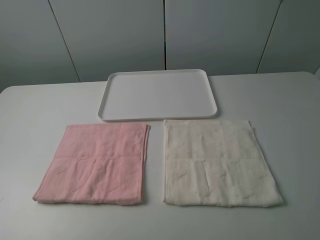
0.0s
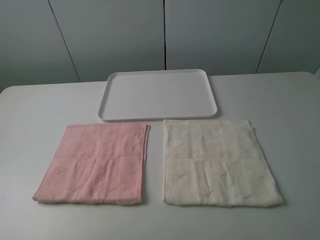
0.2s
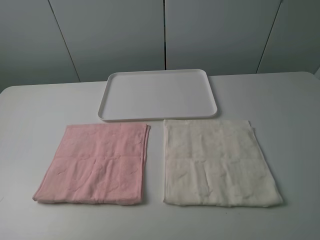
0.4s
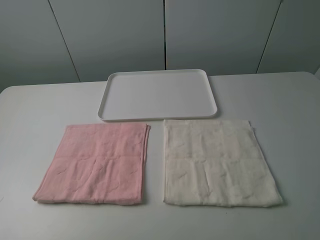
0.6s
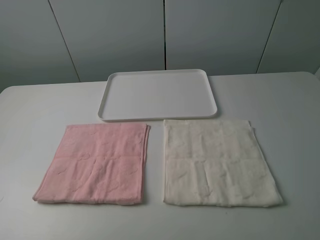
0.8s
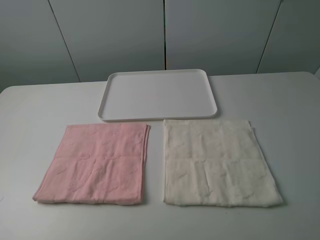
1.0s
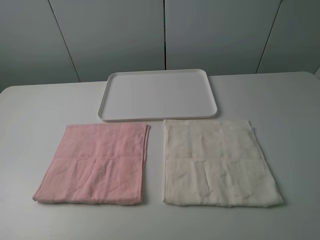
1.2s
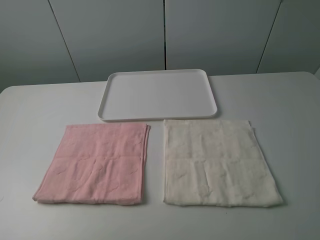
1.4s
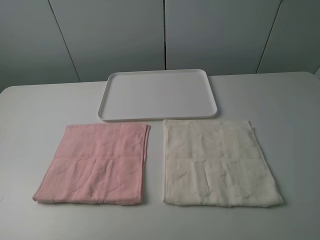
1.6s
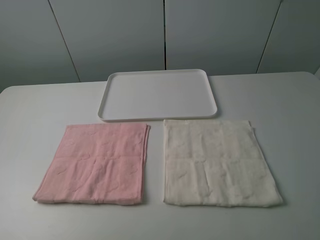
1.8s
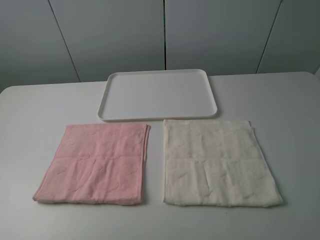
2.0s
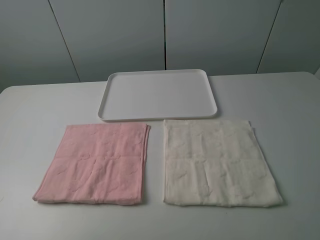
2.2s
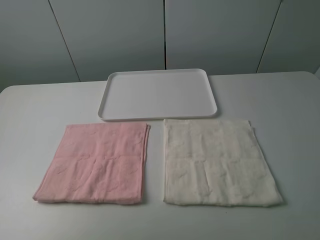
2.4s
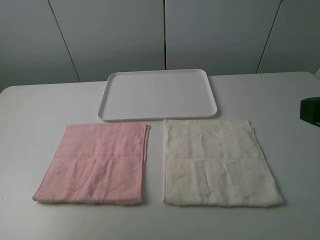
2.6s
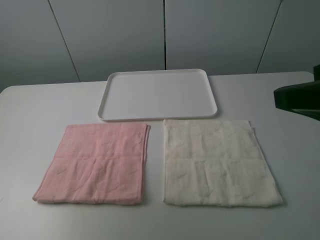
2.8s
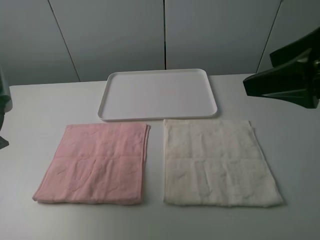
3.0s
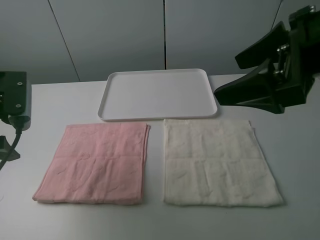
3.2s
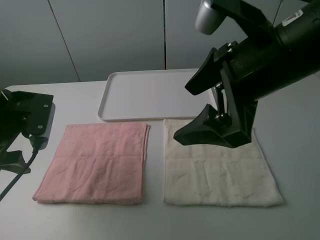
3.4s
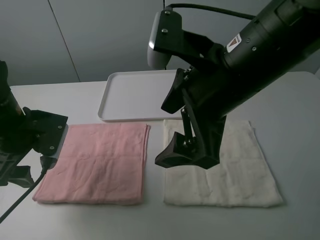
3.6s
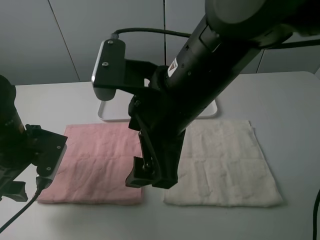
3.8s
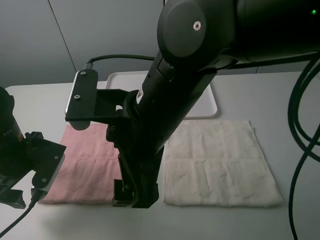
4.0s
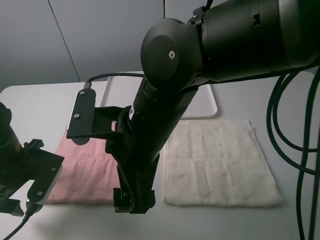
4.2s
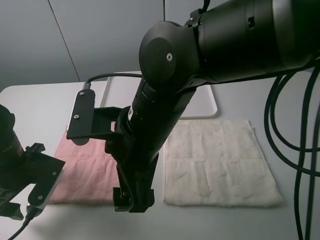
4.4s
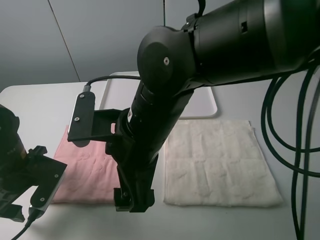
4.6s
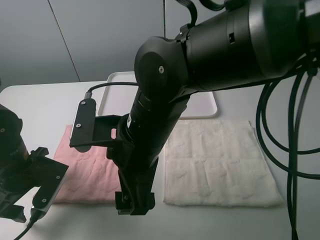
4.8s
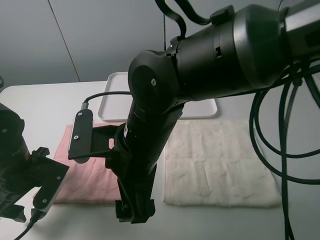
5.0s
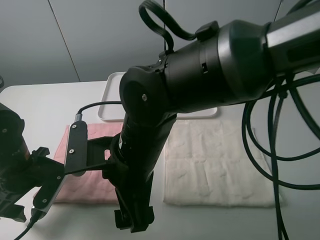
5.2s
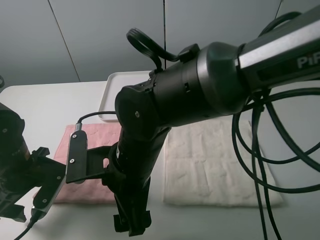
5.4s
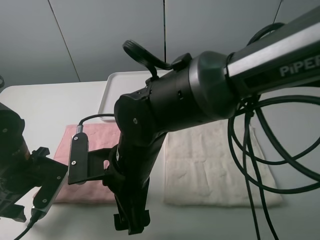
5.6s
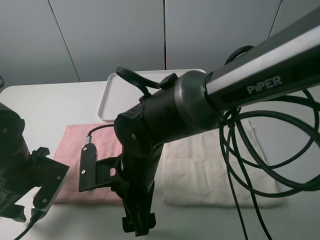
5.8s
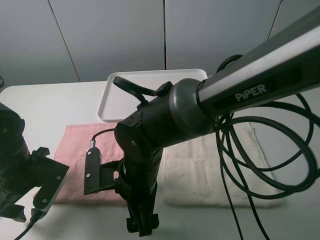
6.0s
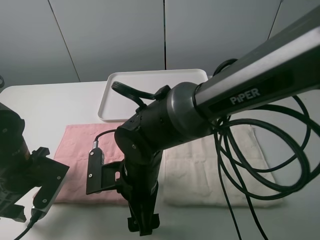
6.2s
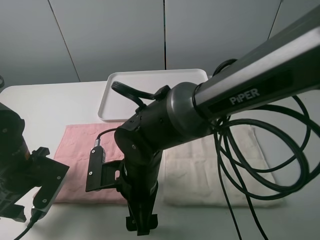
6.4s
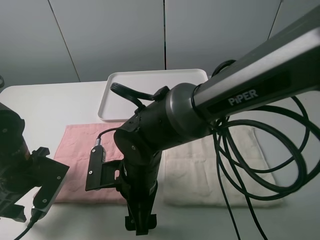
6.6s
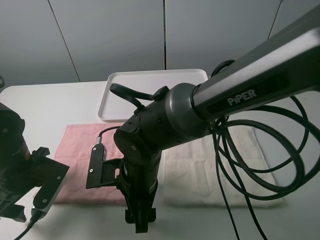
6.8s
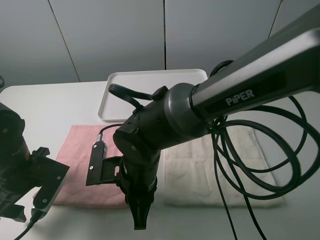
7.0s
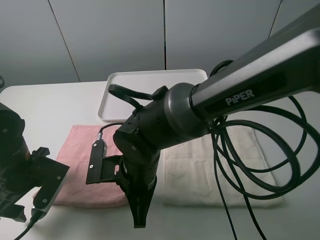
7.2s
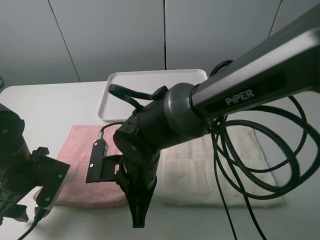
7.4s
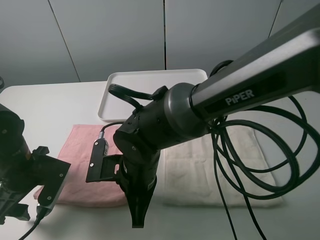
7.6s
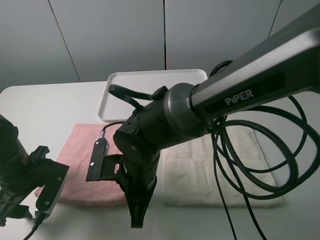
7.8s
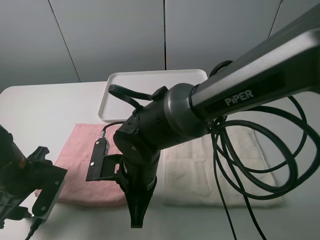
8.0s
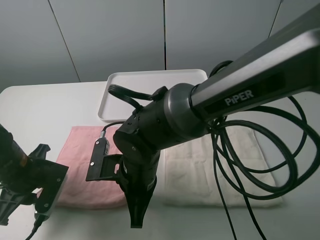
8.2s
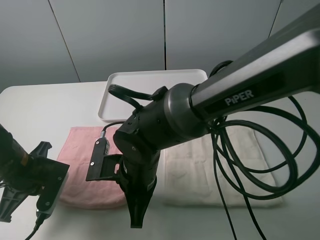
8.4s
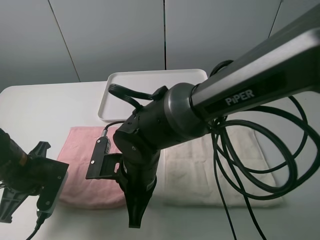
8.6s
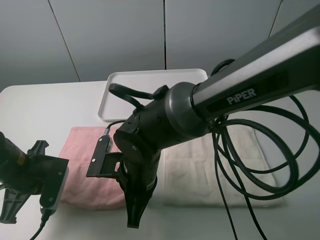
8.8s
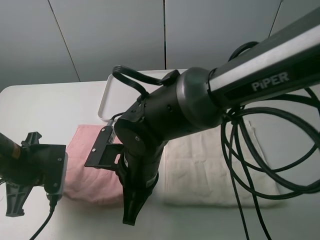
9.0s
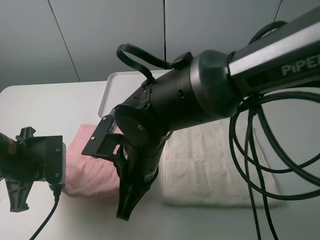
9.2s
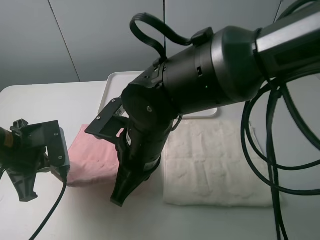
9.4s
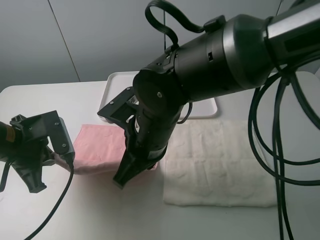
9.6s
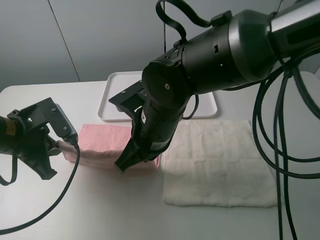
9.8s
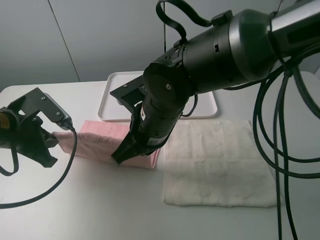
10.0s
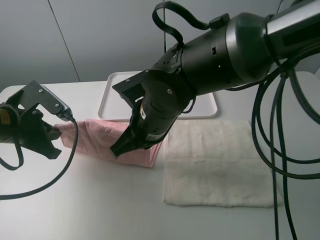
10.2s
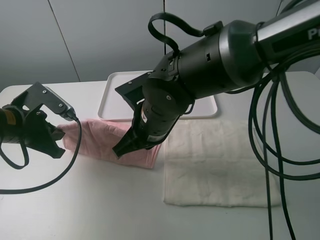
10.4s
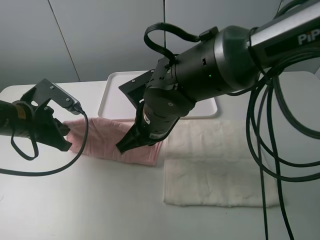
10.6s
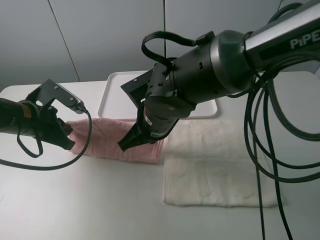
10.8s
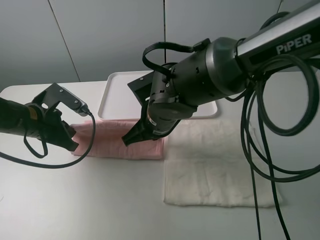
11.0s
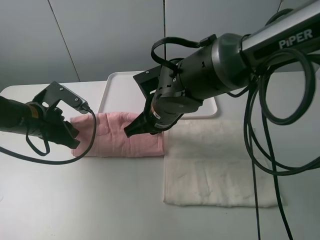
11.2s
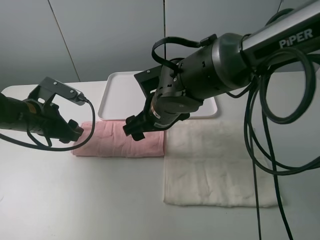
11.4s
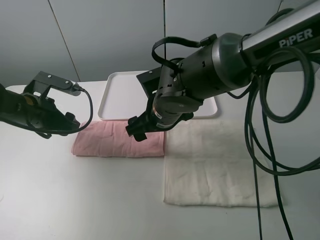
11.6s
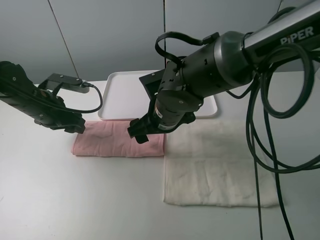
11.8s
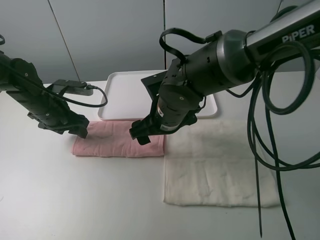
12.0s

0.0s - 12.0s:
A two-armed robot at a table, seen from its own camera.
Task of the whole recording: fold one of the towels by two grippers and place it on the tray,then fold another towel by two grippers and place it on the folded towel.
Step, 0.0s - 8.4s: Grasp the pink towel with the left gripper.
Step, 8.6s - 11.4s: Fold the pink towel upwards with the left gripper.
0.0s - 1.6s: Neither gripper changes place.
1.6s - 3.0s: Both grippers move forward, about 20 cm.
3.0s - 4.4s: The right gripper travels to the left and downward by about 25 cm. Meanwhile the left gripper travels downward by approximately 15 cm.
4.4s - 6.0s: The right gripper shifts approximately 10 cm downward.
6.0s - 7.6s: The right gripper closes its fingers.
7.6s - 9.0s: The left gripper closes its fingers.
9.0s - 10.4s: The right gripper shifts roughly 5 cm forward; the left gripper changes place by roughly 5 cm.
10.4s - 12.0s: The right gripper moves roughly 5 cm, and opens up; the left gripper is displaced forward by roughly 10 cm, and opens.

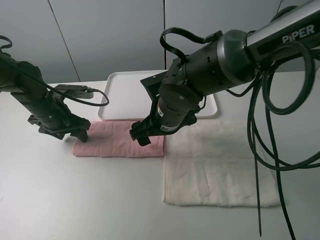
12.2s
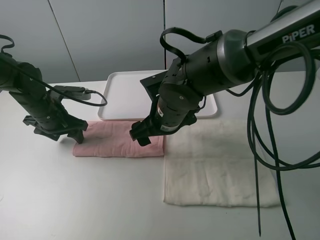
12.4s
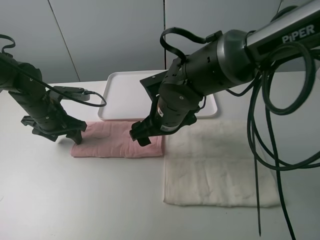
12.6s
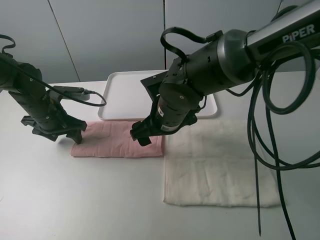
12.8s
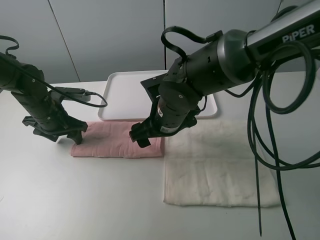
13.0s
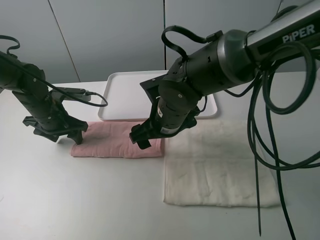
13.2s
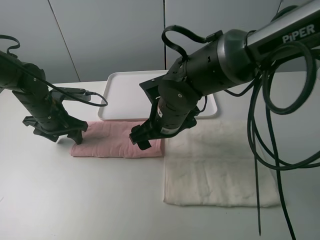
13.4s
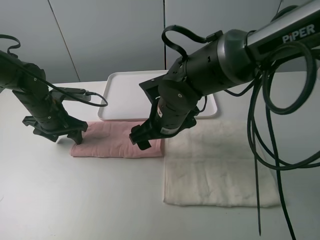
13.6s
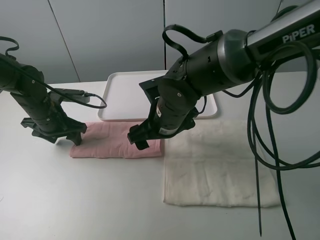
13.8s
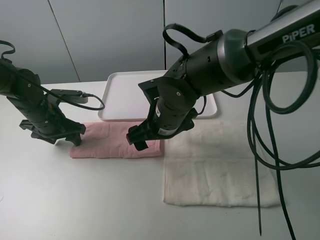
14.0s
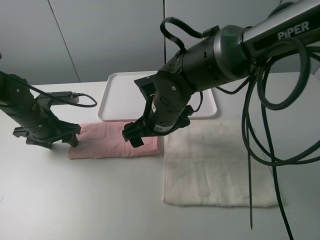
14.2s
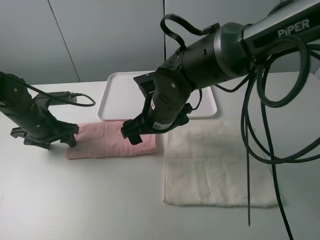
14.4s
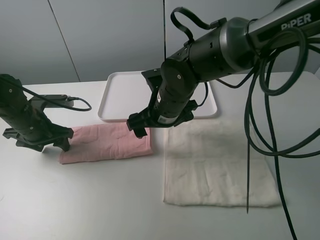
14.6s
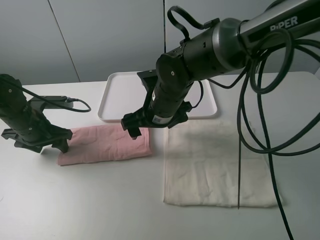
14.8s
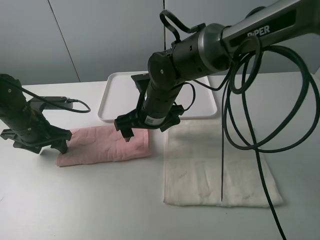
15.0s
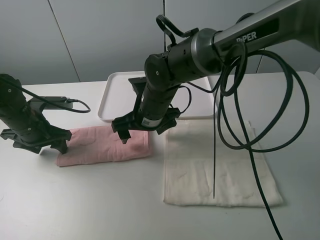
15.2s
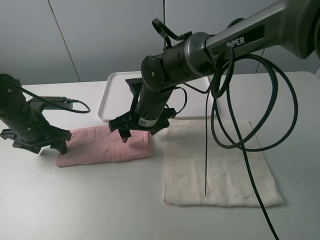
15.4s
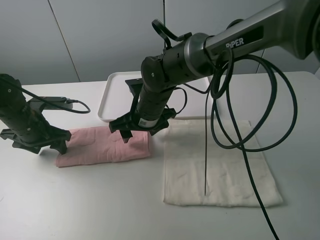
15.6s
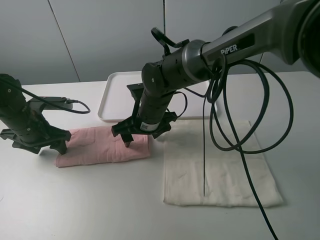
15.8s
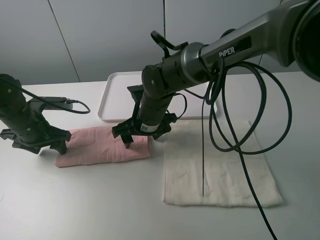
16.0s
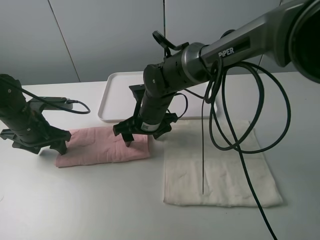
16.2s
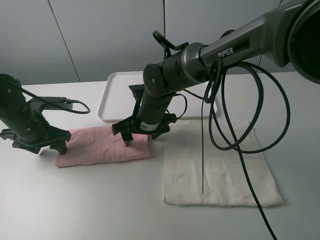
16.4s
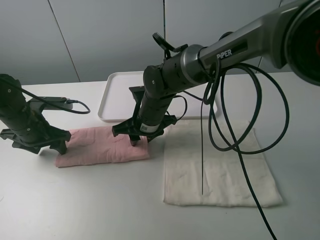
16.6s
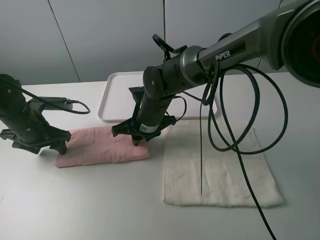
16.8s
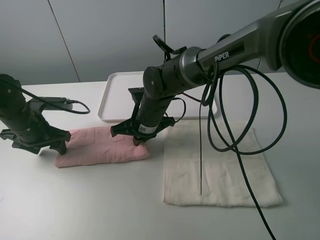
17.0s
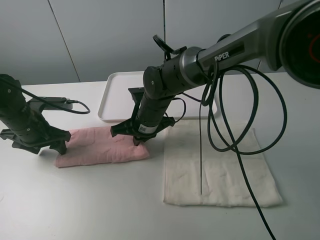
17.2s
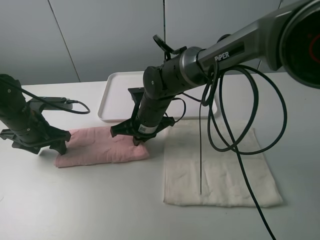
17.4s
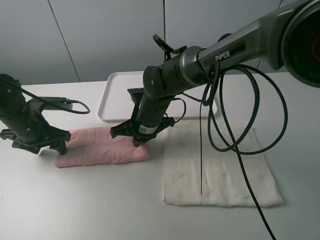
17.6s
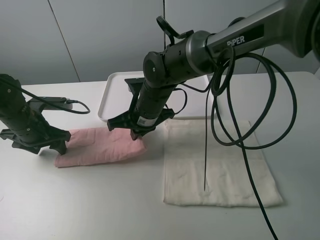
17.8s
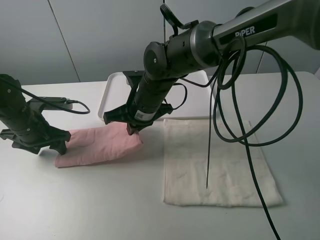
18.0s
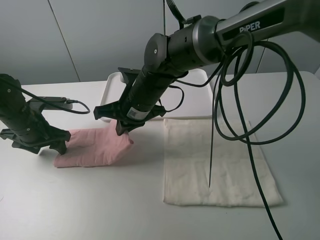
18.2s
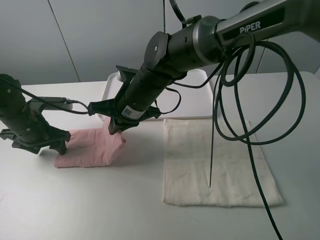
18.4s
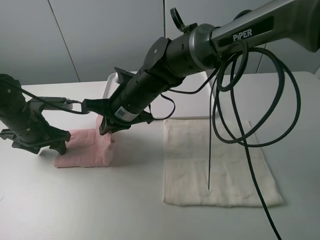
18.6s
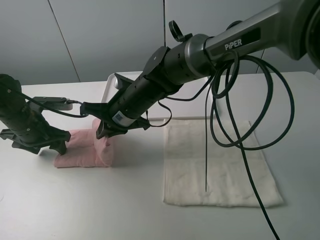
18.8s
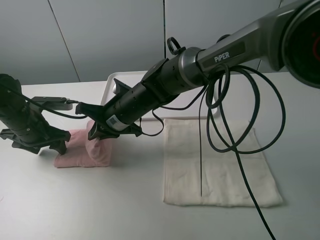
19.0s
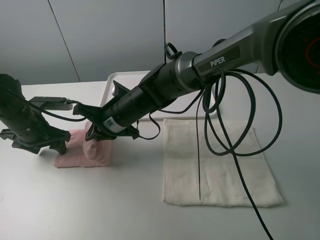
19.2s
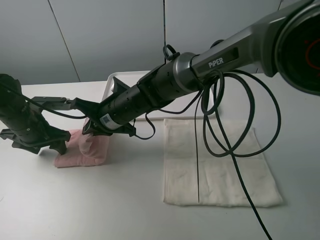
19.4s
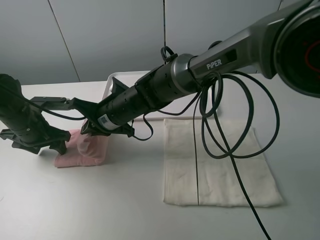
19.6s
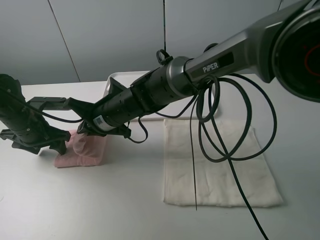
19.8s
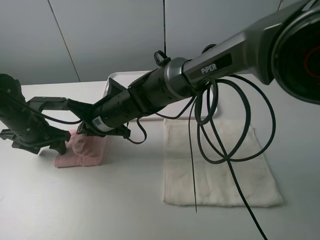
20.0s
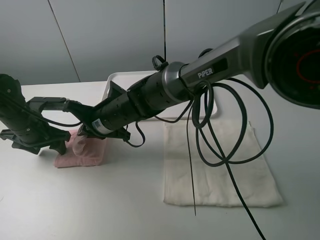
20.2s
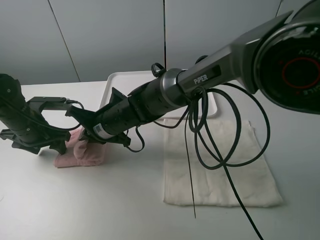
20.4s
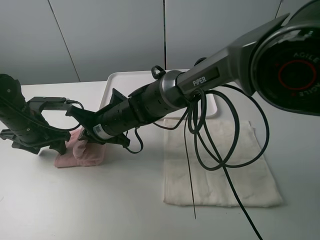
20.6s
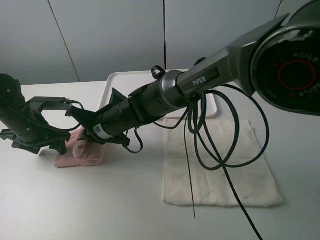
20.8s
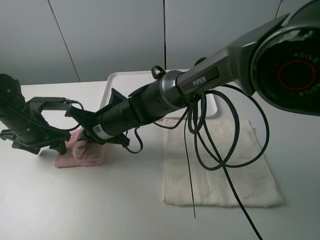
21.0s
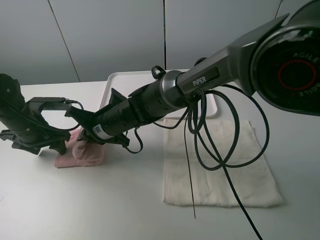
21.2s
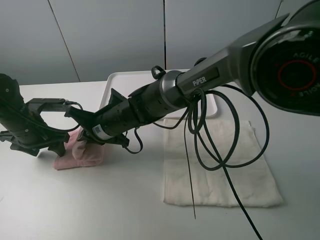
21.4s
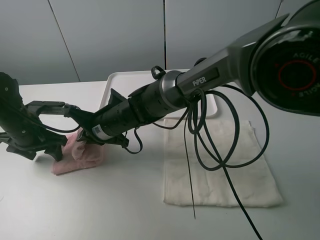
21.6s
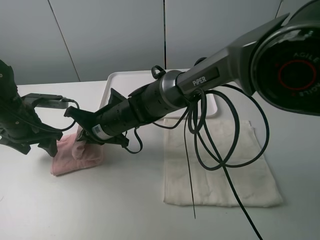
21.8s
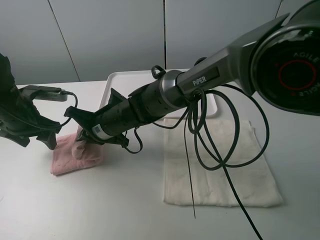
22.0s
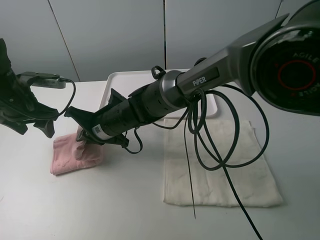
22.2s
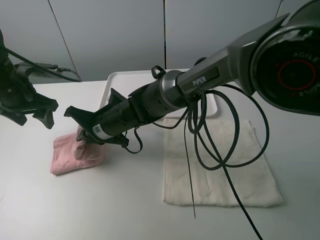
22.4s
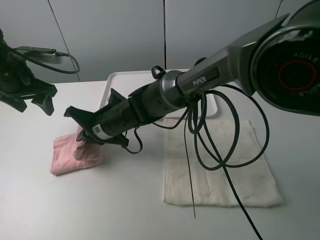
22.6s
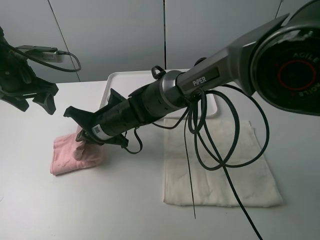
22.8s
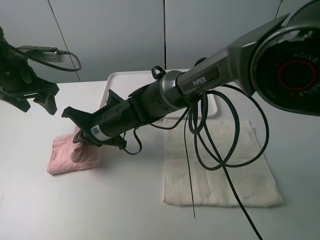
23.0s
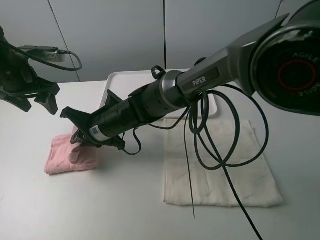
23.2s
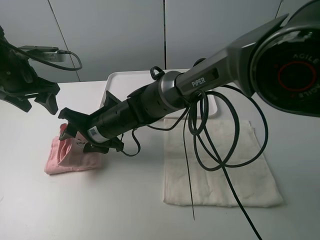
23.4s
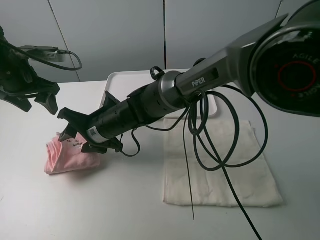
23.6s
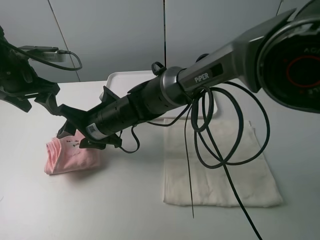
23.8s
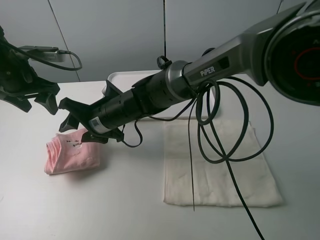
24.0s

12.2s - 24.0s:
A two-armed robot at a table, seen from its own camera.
Task of the whole recording: fold one of the towels by two grippers and place it on the tray,then fold another towel by two grippers and place it on the folded towel.
Step, 12.2s - 13.4s: Press the pink towel with the left gripper.
Step, 13.6s - 17.0s: Grasp the pink towel with the right gripper.
Step, 17.2s - 24.0s: Fold the pink towel from right to left with right gripper.
12.2s - 13.6s: The grippers move only a little.
13.6s - 15.2s: The right gripper changes place by about 5 cm. Meanwhile the left gripper changes place by roughly 5 cm.
15.2s - 16.6s: The right gripper closes up.
16.6s - 18.2s: The right gripper travels upward by roughly 5 cm, and closes its fingers.
18.2s - 19.6s: The right gripper changes place by some 5 cm.
19.6s - 21.0s: The grippers stay close to where they were, moving slightly.
21.0s - 22.6s: The left gripper goes about 10 cm upward.
22.6s - 24.0s: The right gripper opens up.
